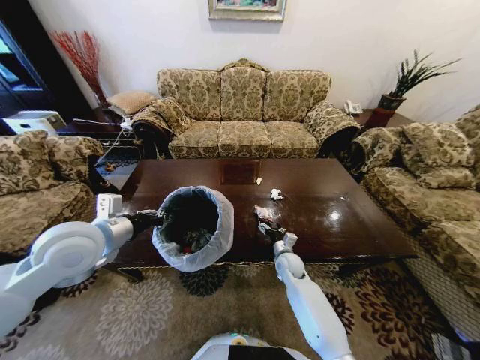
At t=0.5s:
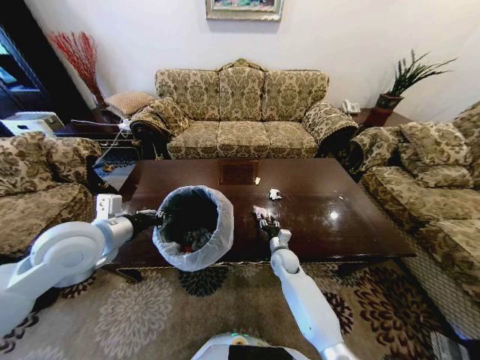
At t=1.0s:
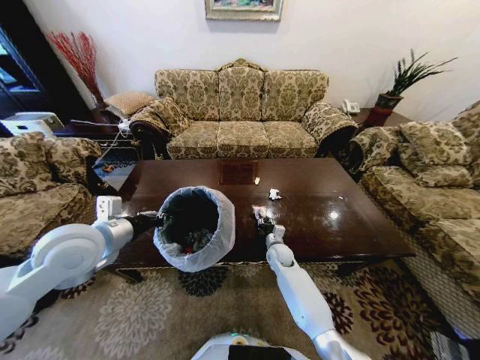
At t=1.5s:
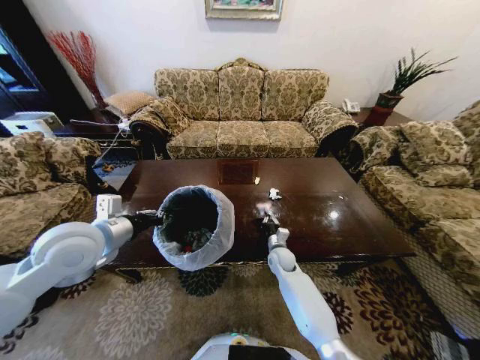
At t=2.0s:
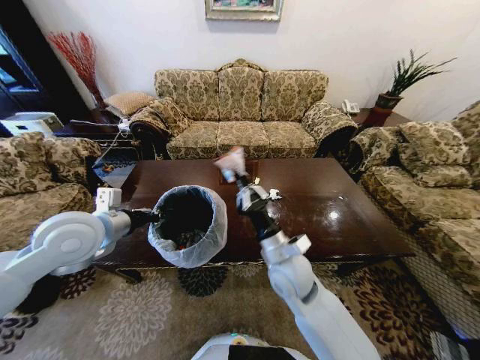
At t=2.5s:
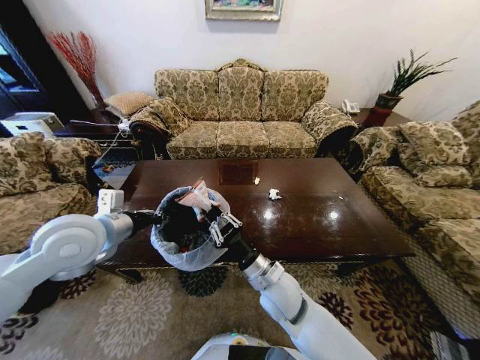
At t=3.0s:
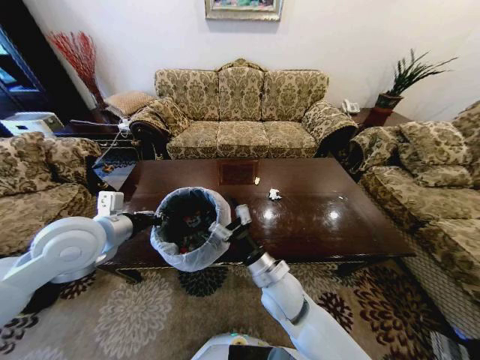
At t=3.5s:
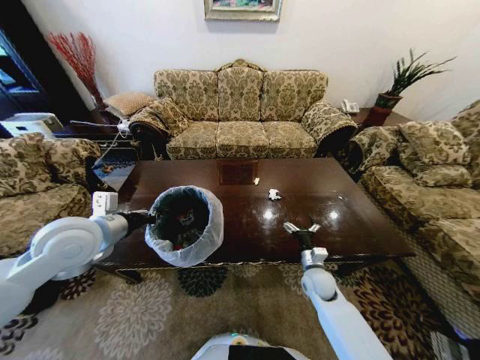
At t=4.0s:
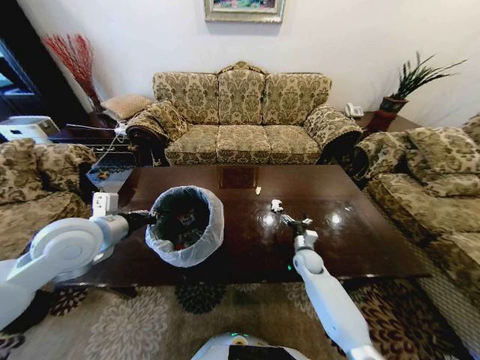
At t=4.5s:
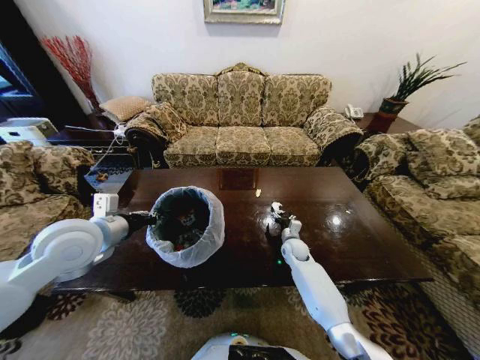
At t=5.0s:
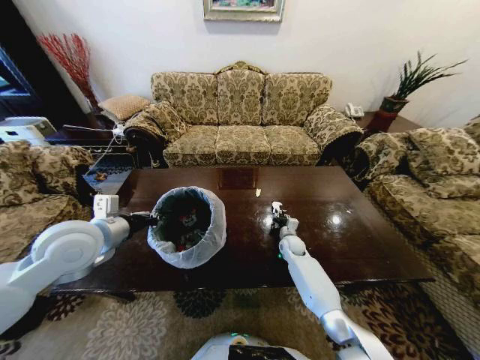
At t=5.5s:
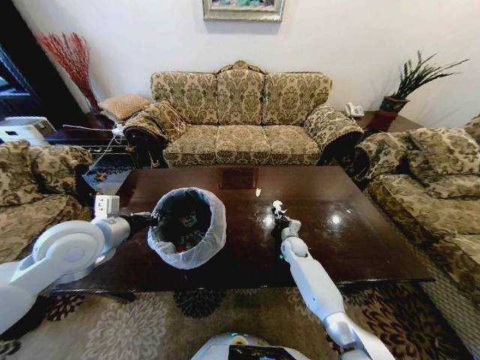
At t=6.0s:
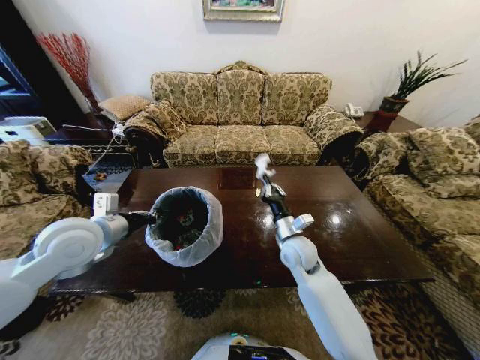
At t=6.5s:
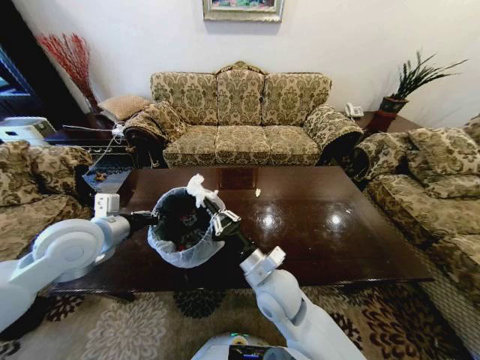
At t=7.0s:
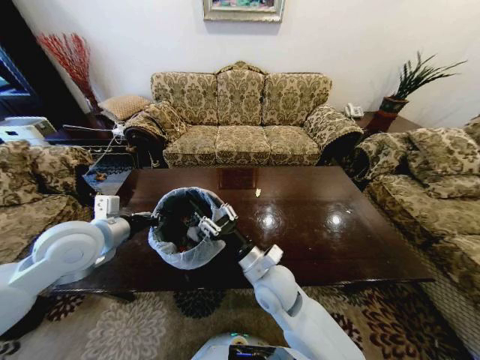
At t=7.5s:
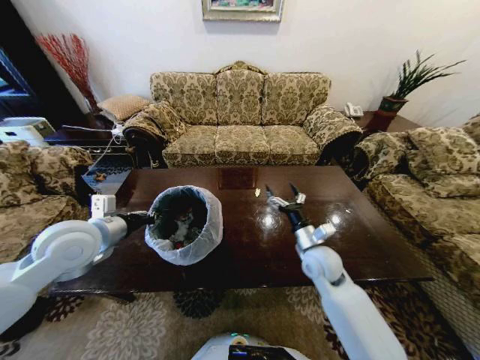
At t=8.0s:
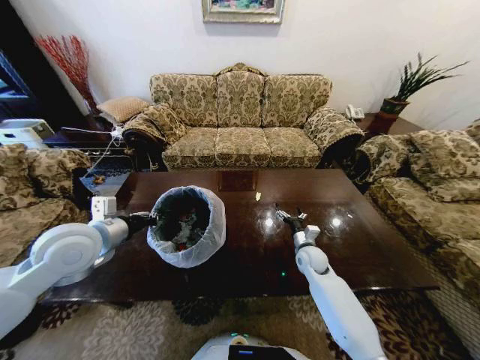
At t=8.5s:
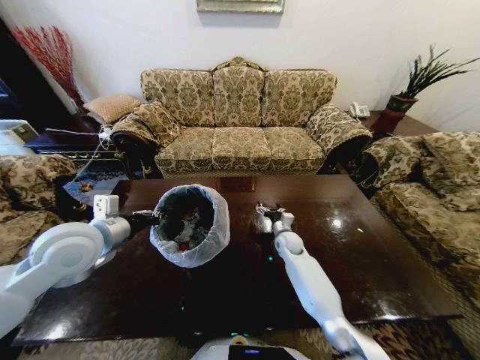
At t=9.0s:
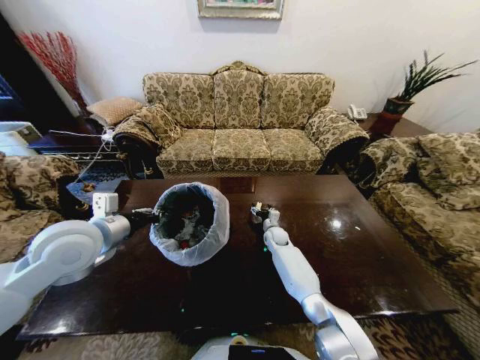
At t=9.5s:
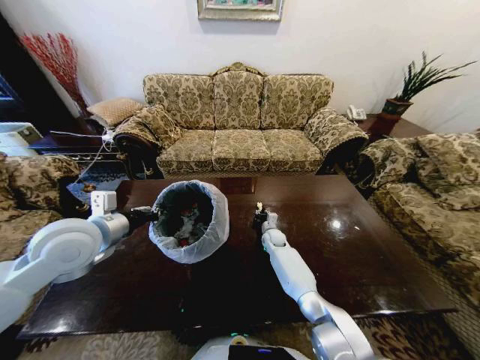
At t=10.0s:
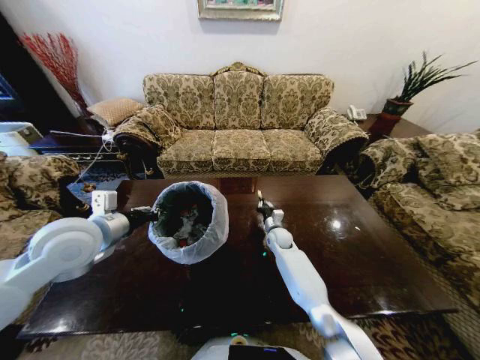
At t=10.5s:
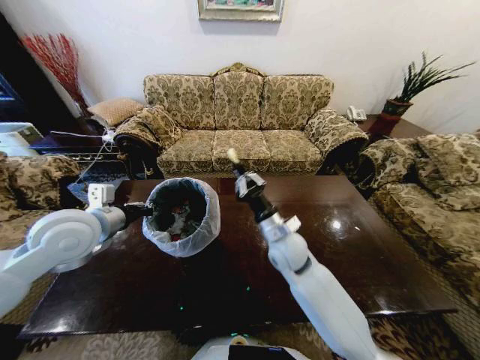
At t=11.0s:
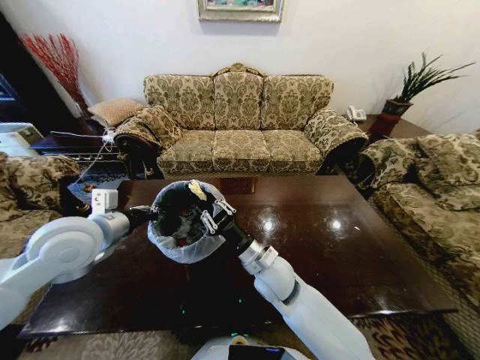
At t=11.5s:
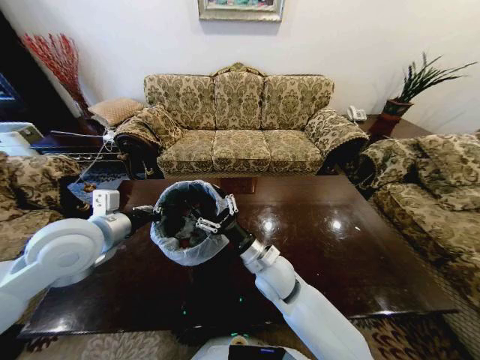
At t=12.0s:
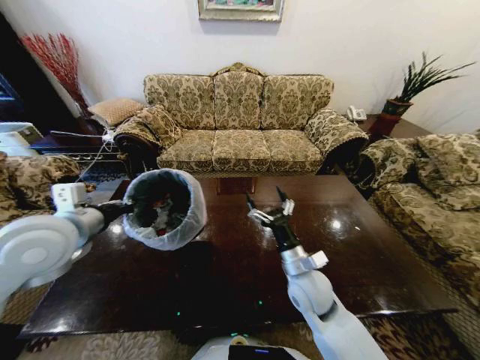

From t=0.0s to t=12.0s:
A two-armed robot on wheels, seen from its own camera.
Task of the whole recording: Move to the front of the table and place the trash on the table into the trash bin.
From t=0.0s to t=2.0s: The right gripper moves upward and backward, roughly 25 cm, and closes up.
From t=2.0s to t=4.0s: The right gripper travels downward, to the right and forward by roughly 30 cm, and opens its fingers.
From t=4.0s to t=6.0s: The right gripper is displaced upward and to the left by approximately 20 cm, and closes its fingers.
From t=6.0s to t=8.0s: The right gripper travels downward and to the right by about 15 cm, and opens up.
From t=8.0s to t=10.0s: The right gripper shifts about 15 cm forward and to the left, and closes its fingers.
From t=10.0s to t=12.0s: The right gripper goes roughly 25 cm backward and upward, and opens up.

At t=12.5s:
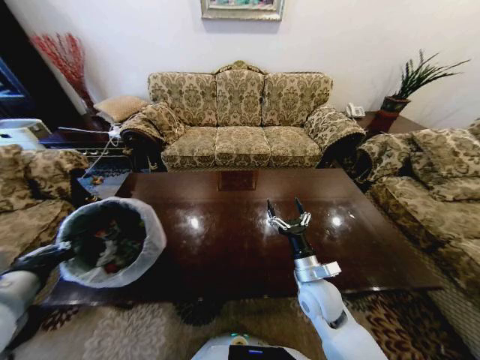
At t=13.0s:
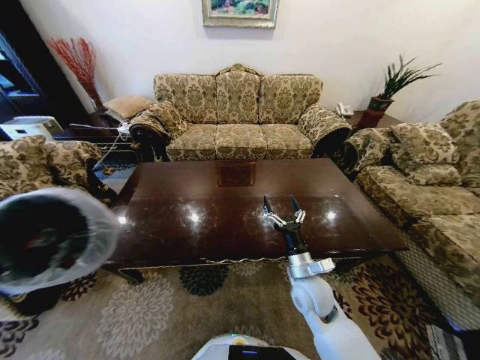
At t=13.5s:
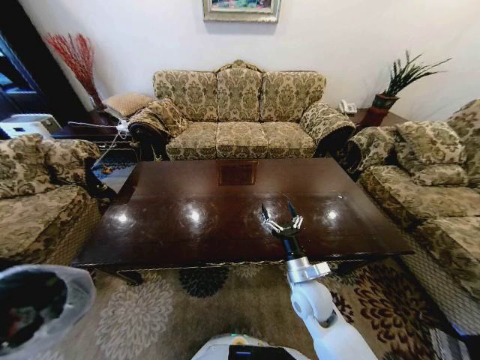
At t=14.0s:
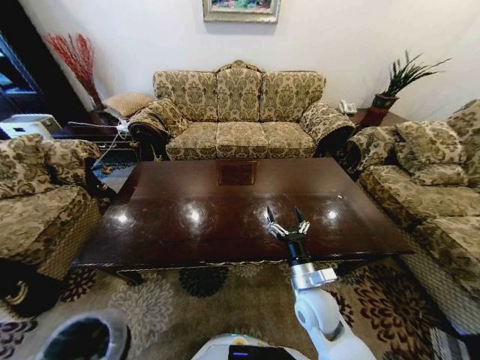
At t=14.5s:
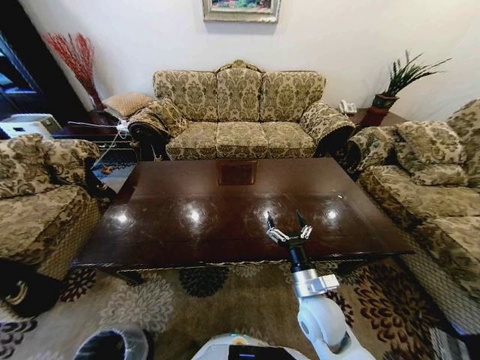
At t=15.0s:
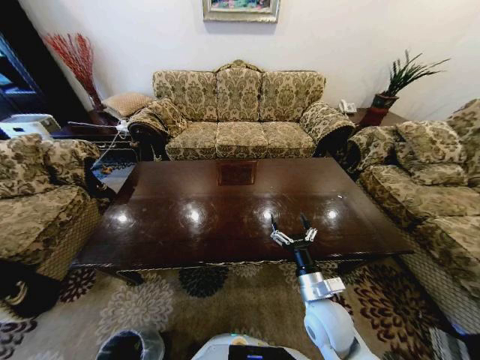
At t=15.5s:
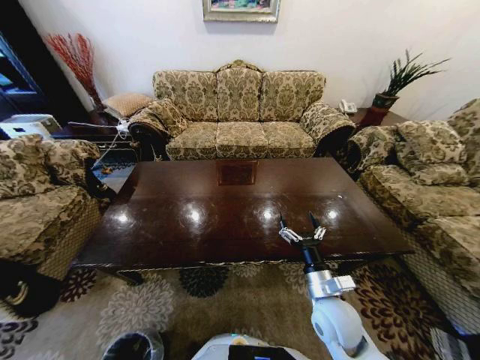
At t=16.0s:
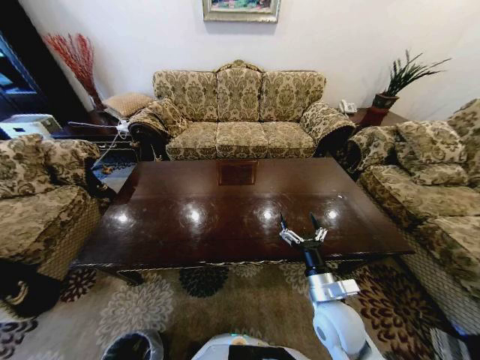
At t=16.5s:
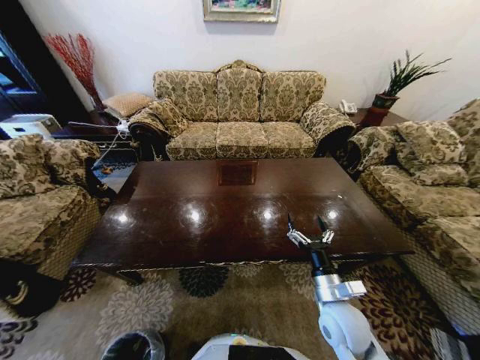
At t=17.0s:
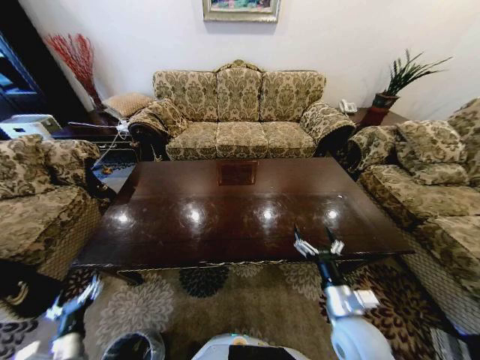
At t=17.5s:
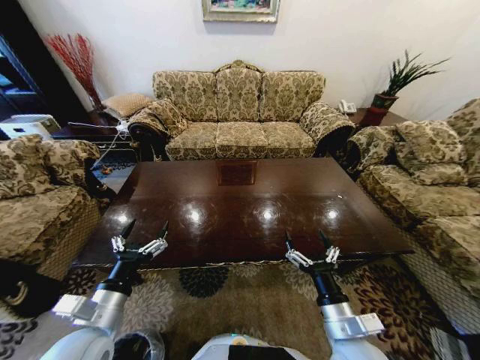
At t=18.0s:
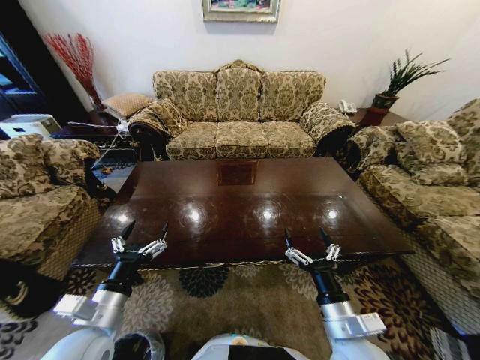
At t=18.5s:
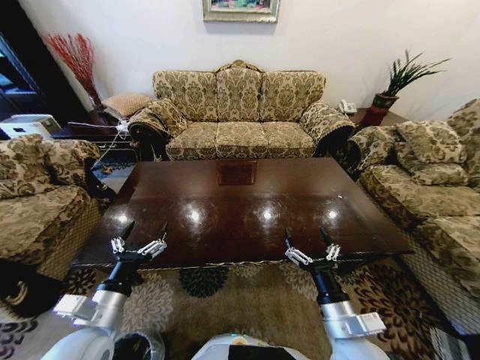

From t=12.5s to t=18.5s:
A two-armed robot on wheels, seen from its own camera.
Task of the whole recording: Move to the front of the table and place the trash on the table into the trash bin.
From t=12.5s to t=14.5s: The left gripper moves downward, approximately 50 cm.
From t=14.5s to t=16.5s: The right gripper ends up roughly 5 cm from where it was. The left gripper heads backward, covering about 5 cm, and opens.
From t=16.5s to t=18.5s: The left gripper moves upward, forward and to the right, approximately 40 cm; the right gripper is displaced backward by about 5 cm.
